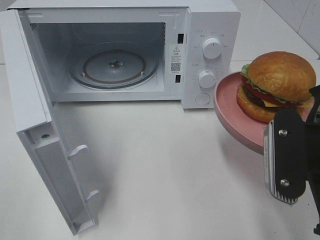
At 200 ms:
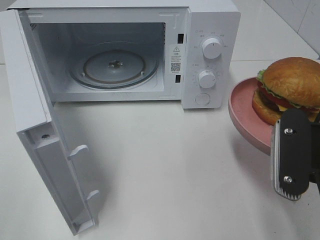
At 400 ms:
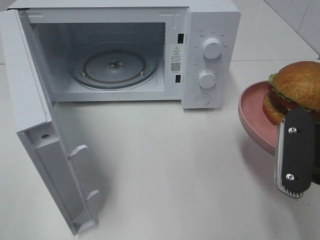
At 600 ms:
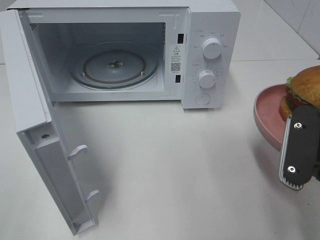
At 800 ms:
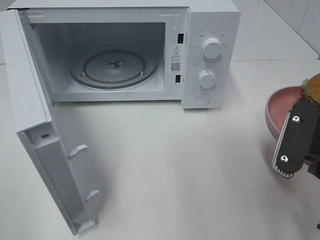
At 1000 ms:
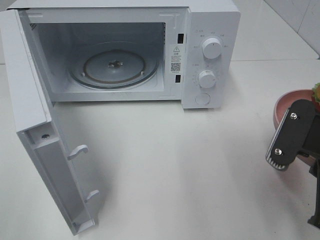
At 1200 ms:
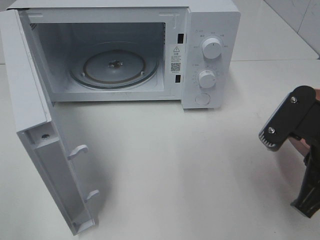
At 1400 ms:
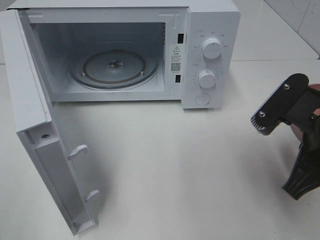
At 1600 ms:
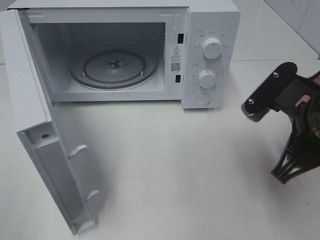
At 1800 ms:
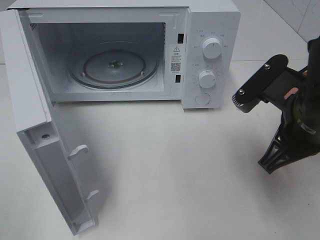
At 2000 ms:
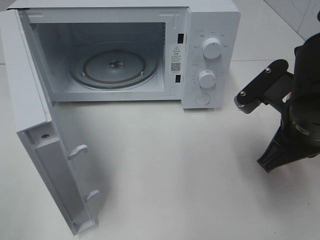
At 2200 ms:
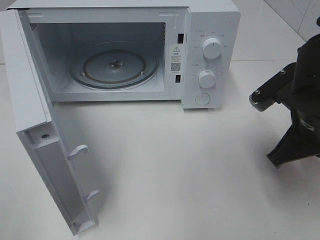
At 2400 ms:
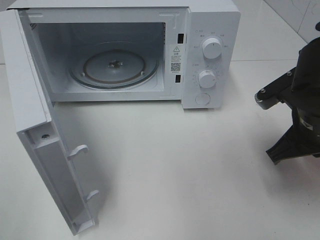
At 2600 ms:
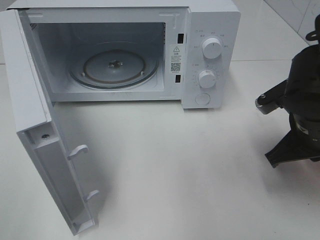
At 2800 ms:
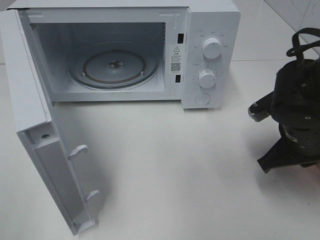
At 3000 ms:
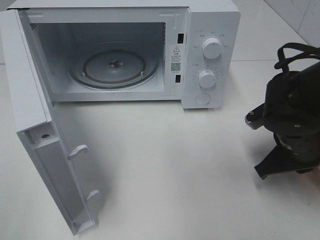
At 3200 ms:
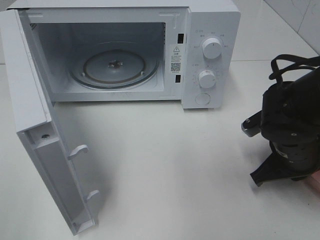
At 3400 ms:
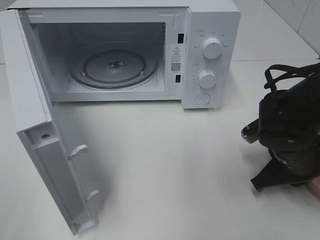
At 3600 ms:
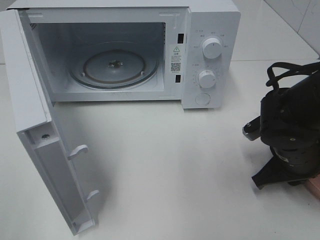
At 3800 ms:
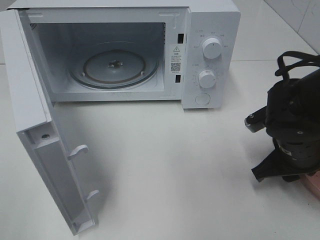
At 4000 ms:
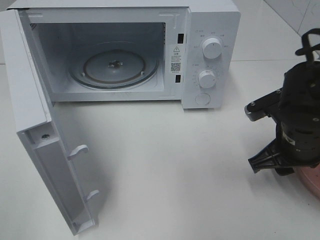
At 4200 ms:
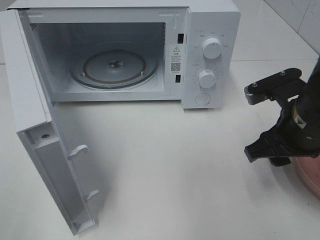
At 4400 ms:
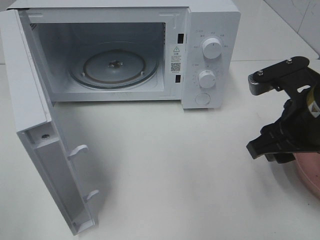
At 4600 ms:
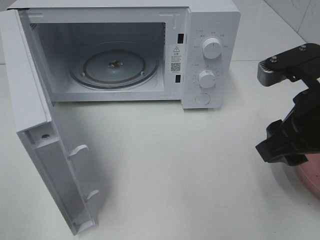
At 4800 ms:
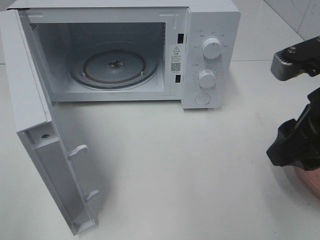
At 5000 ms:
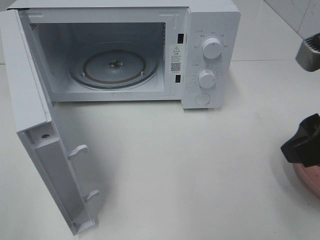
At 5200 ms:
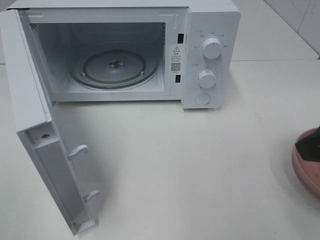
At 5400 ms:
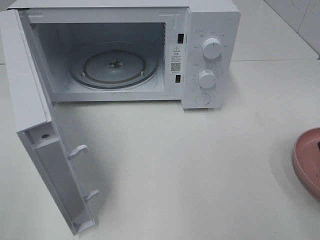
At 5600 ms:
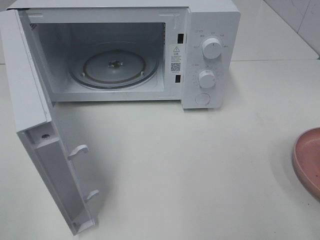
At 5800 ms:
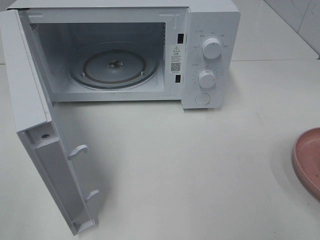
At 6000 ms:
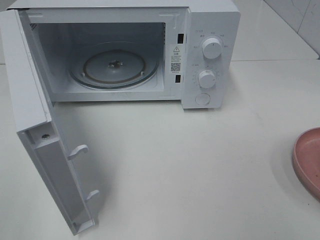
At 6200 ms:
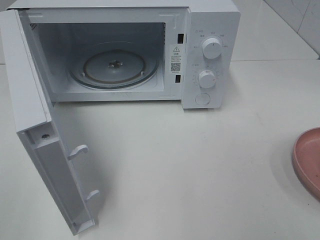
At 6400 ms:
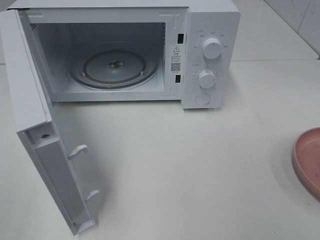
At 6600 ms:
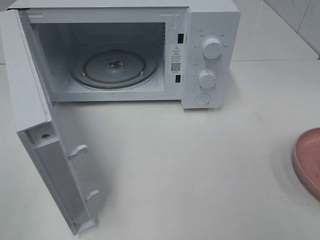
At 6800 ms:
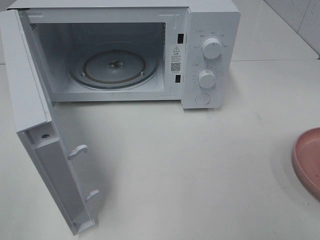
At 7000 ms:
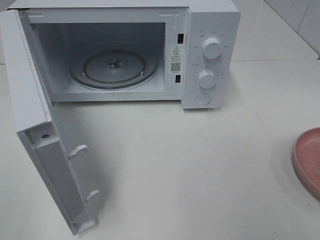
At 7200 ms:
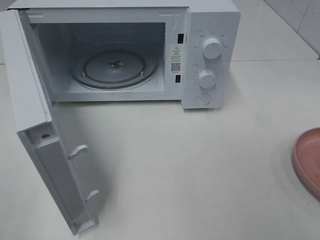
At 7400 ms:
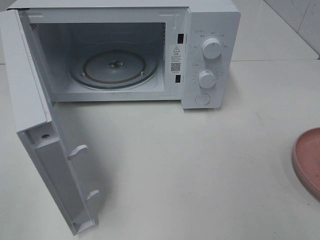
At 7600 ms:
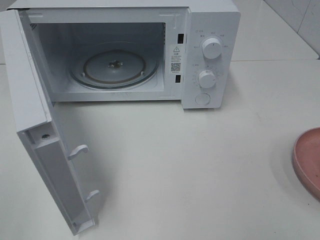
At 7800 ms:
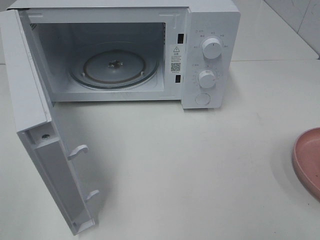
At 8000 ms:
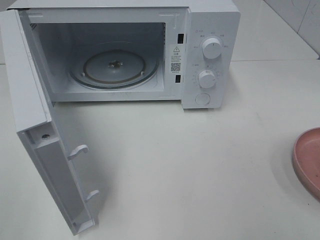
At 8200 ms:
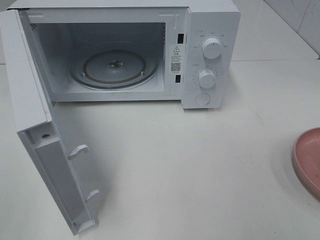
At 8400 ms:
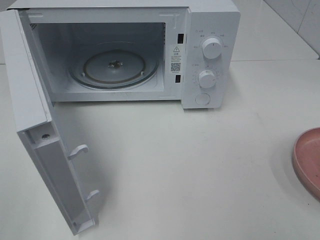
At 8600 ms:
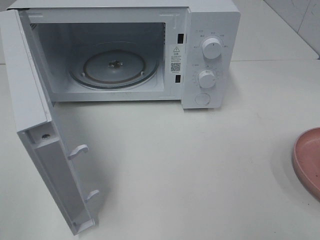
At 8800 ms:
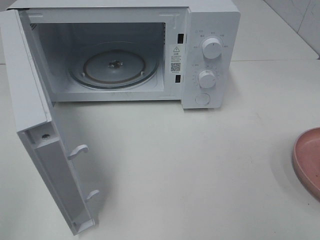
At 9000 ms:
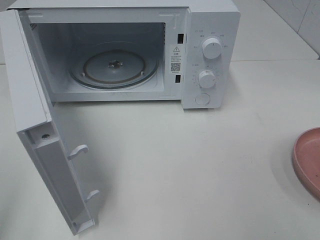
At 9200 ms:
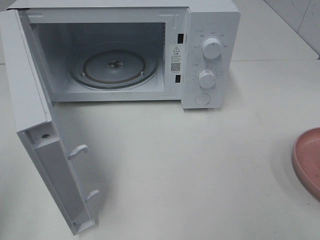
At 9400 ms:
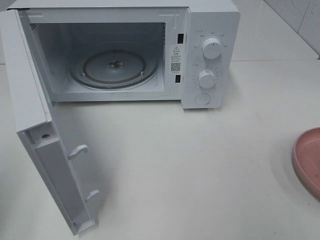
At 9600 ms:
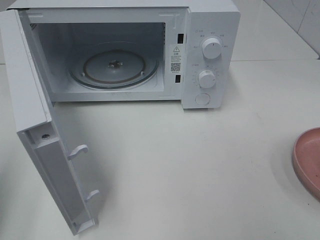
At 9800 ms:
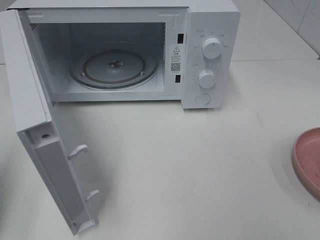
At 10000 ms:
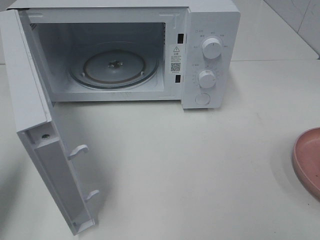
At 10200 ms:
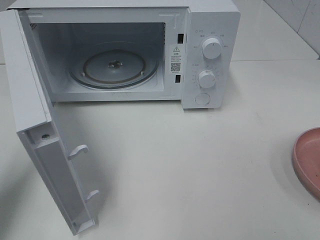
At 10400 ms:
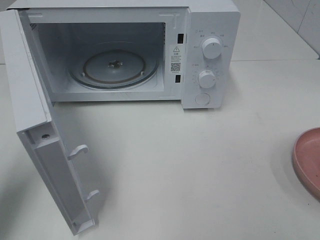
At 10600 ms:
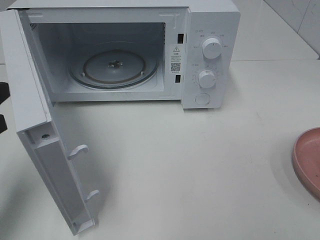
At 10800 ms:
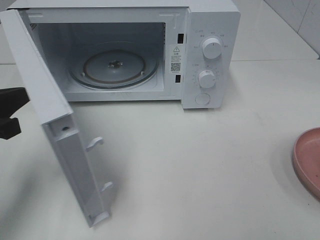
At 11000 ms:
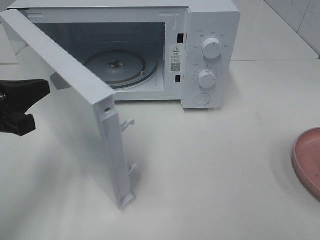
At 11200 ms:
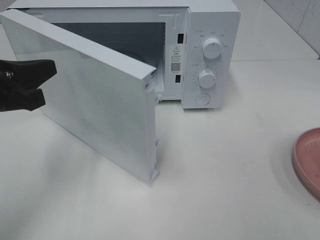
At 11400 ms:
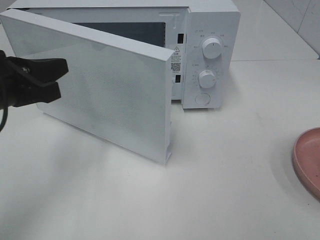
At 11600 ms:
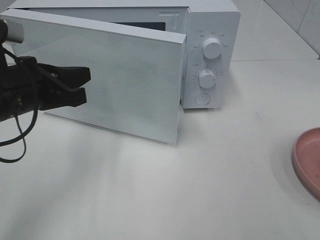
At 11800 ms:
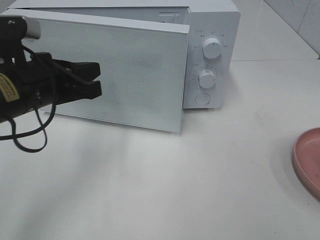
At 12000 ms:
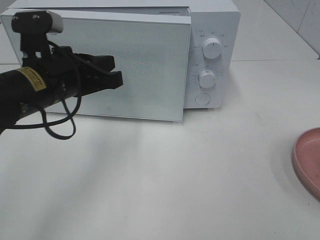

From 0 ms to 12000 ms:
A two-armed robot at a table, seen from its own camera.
Task of the whole recording: Heat the burger.
Step, from 0 ms to 3800 ms: Right hand: place the plate on the table.
From 0 ms to 1600 ms: The right gripper shifts some 5 cm forward.
From 1600 ms to 3000 ms: The right gripper shifts about 10 cm downward and forward.
From 3000 ms to 4400 ms: The right gripper travels upward by roughly 10 cm, and opens.
From 4400 ms to 6000 ms: The right gripper shifts some 20 cm backward, to the right and upward.
From 9000 ms to 10400 ms: The left gripper is displaced forward and downward by roughly 15 cm, and closes up.
From 10400 ms to 12000 ms: The left gripper moves to the right and forward, about 15 cm.

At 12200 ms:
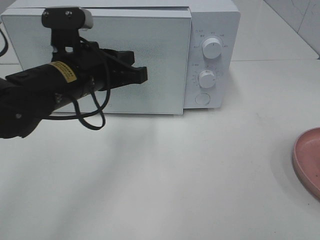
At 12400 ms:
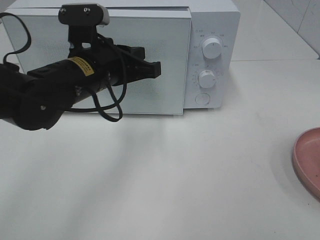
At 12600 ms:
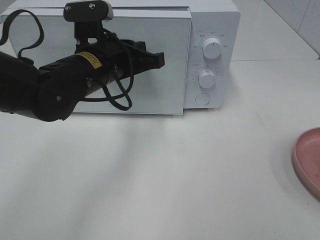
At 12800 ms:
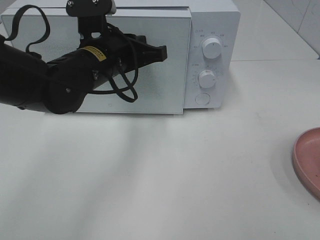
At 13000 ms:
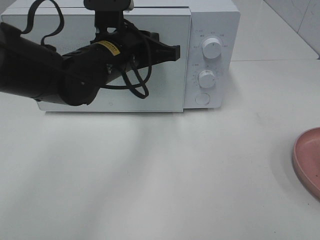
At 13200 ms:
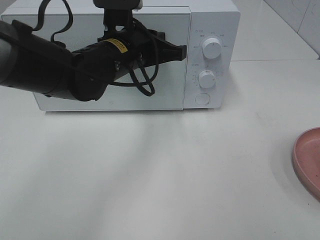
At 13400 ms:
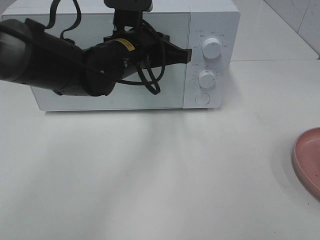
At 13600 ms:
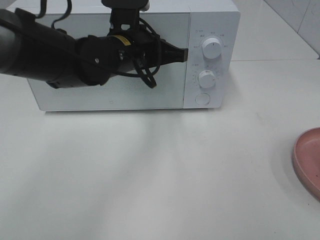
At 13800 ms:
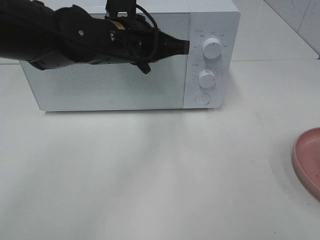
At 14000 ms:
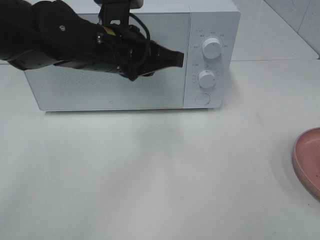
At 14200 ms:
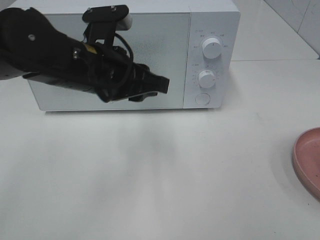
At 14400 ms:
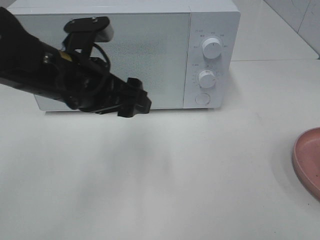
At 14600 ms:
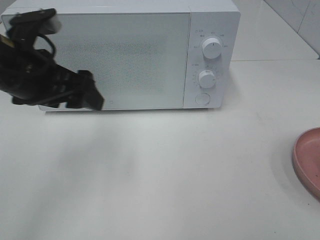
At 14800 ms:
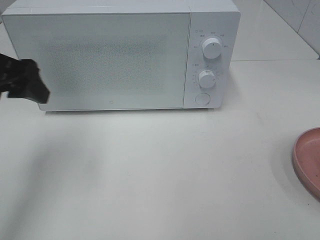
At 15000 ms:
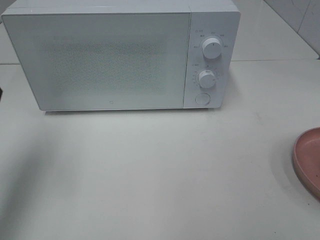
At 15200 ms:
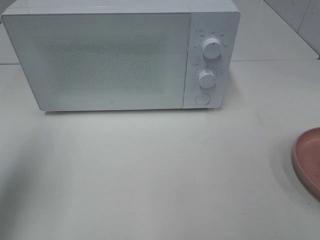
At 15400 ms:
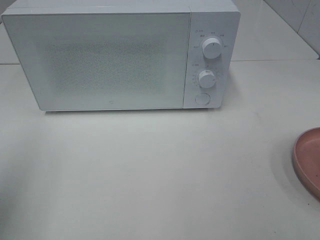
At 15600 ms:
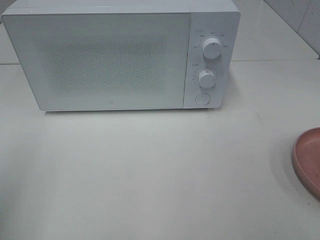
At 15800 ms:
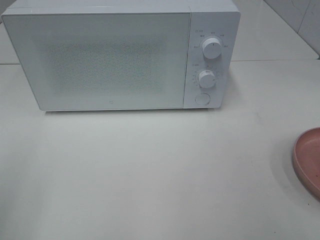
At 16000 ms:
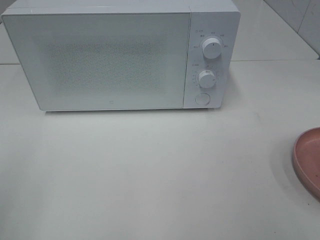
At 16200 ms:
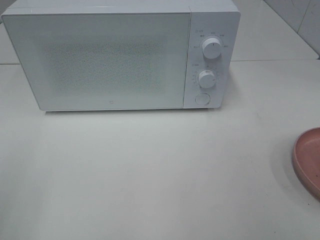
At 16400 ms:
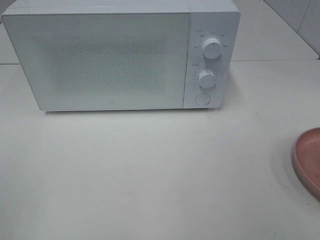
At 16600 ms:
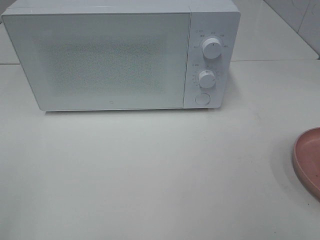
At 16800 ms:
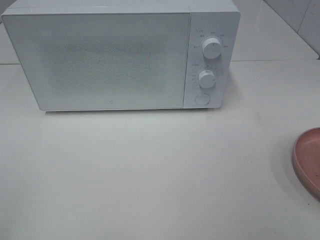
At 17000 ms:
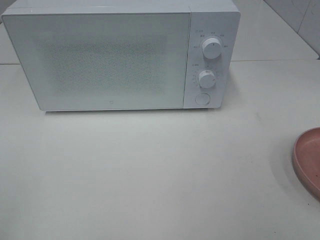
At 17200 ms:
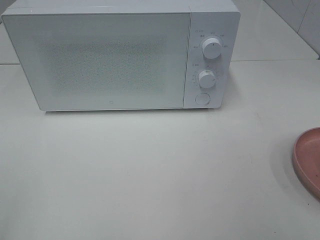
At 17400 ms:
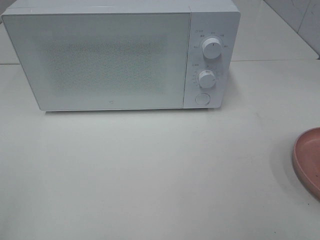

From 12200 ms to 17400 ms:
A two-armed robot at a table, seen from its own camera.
Task of the whole recording: Heat the burger.
From 14000 ms to 15600 ms: The left gripper heads to the left and backward, covering roughly 35 cm, and opens up.
